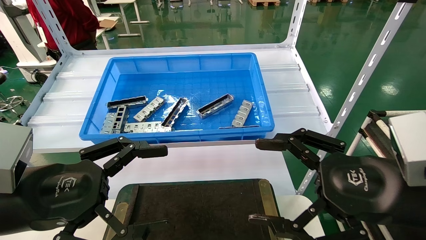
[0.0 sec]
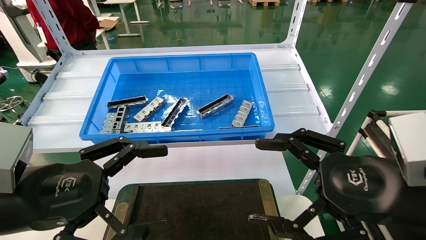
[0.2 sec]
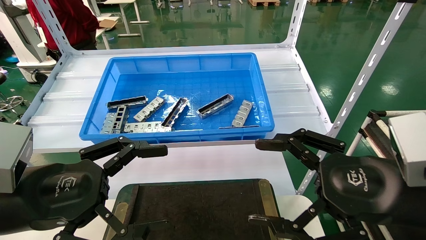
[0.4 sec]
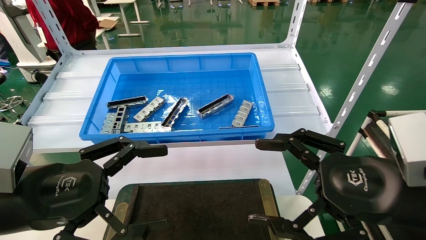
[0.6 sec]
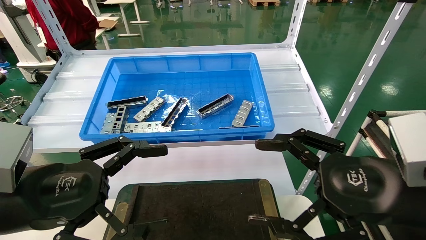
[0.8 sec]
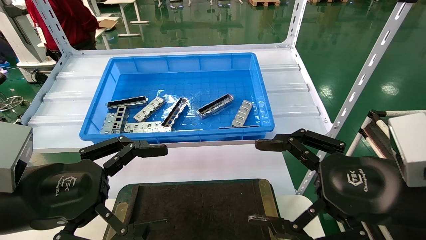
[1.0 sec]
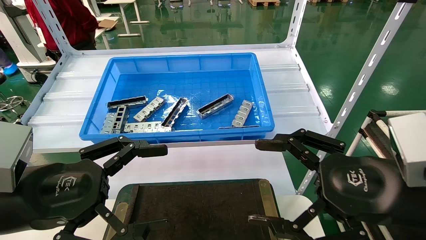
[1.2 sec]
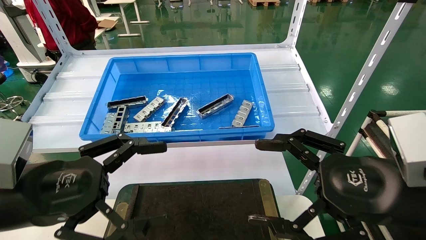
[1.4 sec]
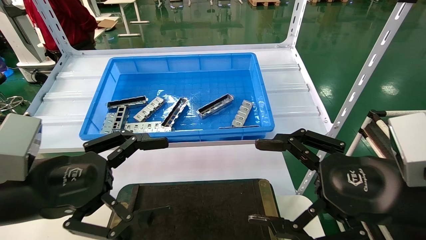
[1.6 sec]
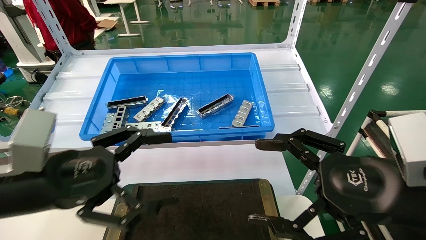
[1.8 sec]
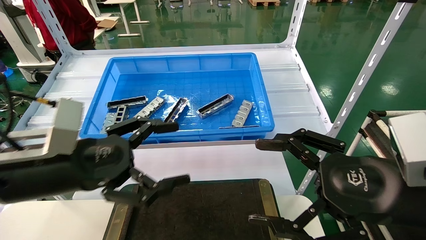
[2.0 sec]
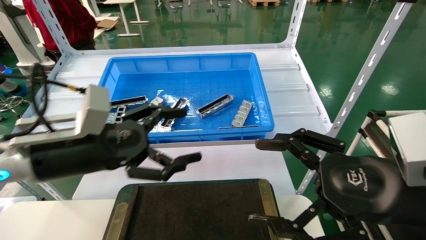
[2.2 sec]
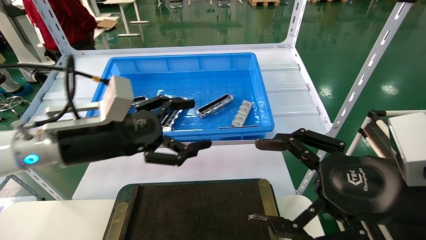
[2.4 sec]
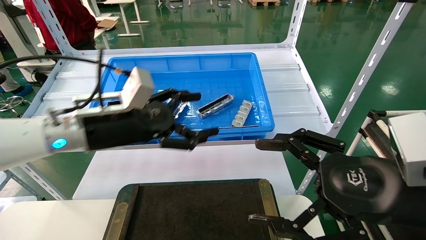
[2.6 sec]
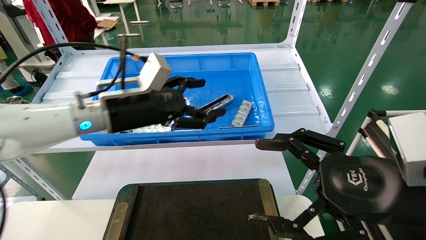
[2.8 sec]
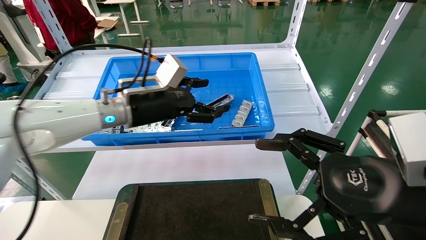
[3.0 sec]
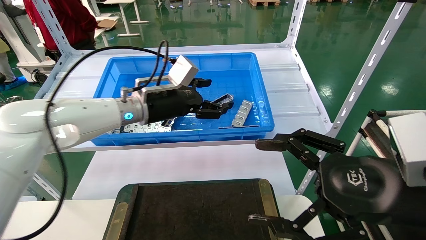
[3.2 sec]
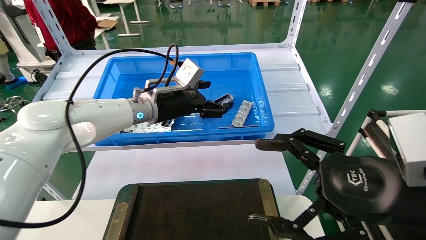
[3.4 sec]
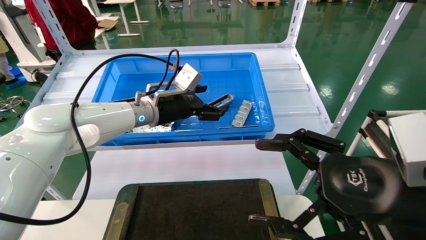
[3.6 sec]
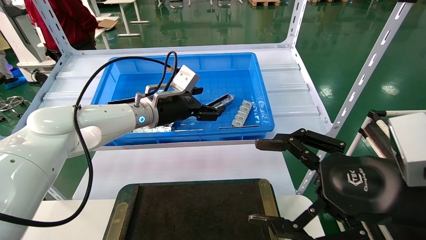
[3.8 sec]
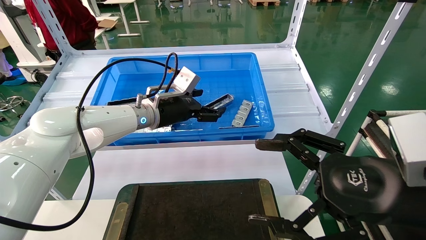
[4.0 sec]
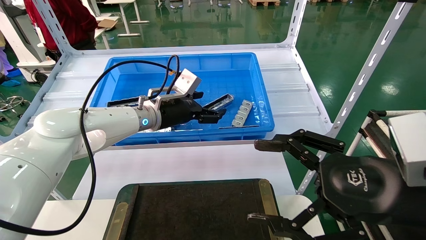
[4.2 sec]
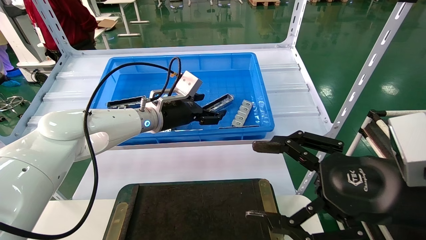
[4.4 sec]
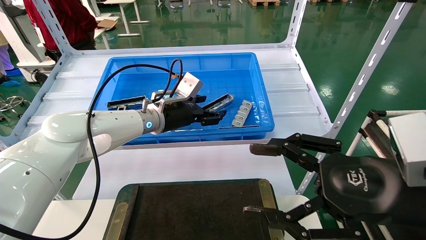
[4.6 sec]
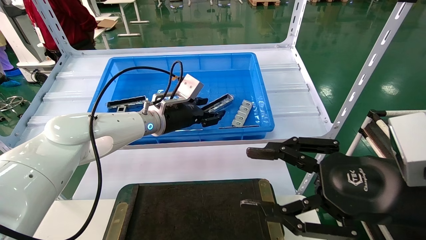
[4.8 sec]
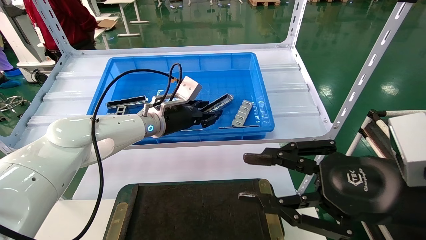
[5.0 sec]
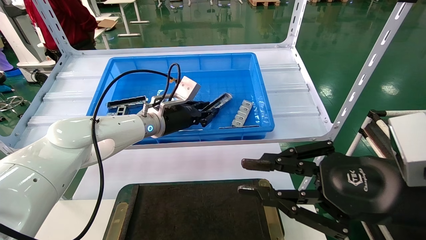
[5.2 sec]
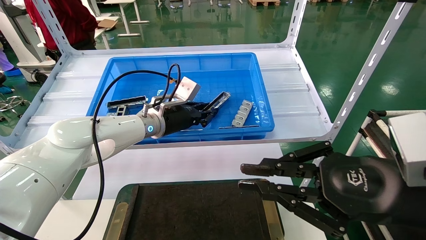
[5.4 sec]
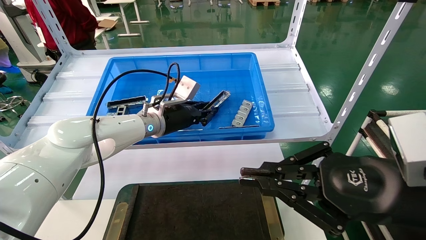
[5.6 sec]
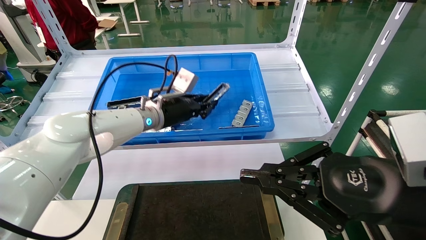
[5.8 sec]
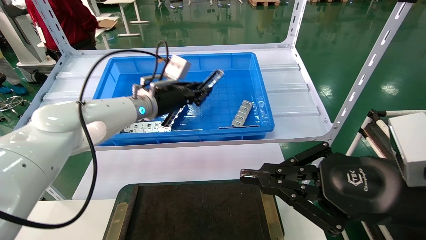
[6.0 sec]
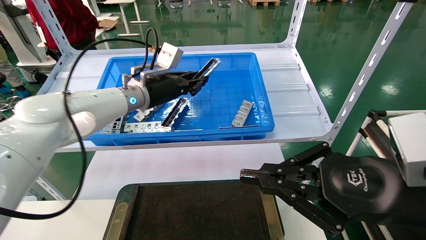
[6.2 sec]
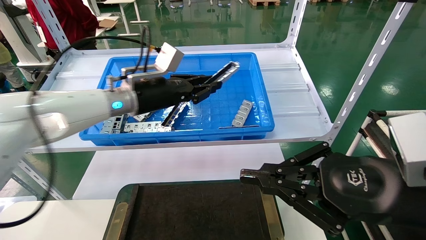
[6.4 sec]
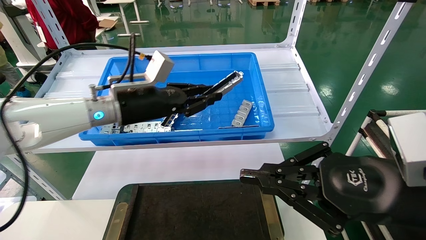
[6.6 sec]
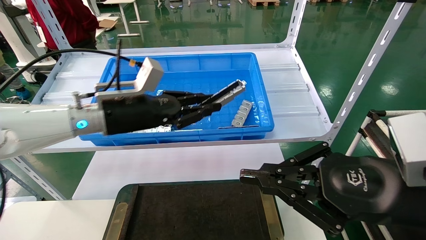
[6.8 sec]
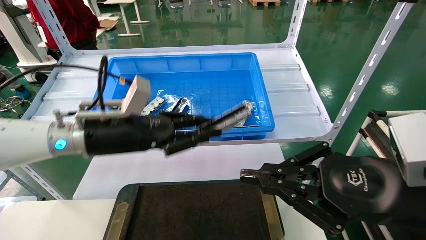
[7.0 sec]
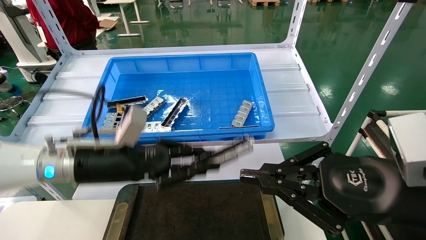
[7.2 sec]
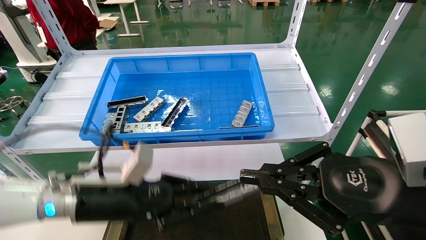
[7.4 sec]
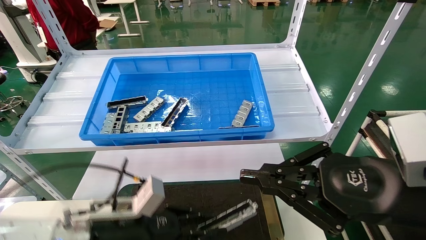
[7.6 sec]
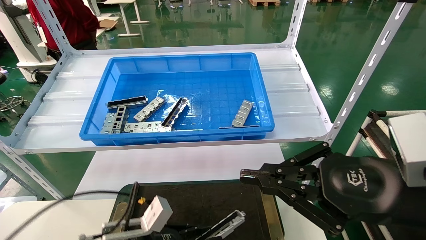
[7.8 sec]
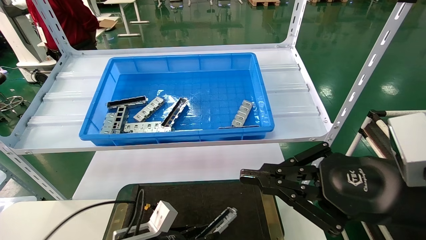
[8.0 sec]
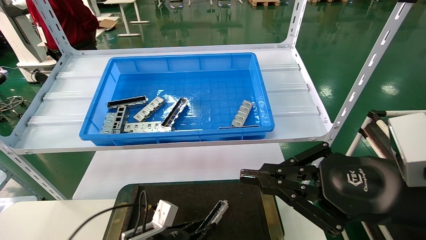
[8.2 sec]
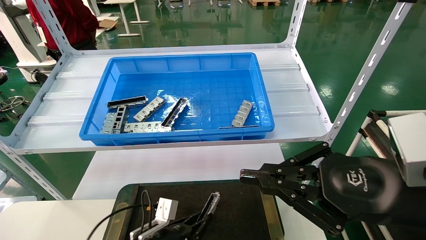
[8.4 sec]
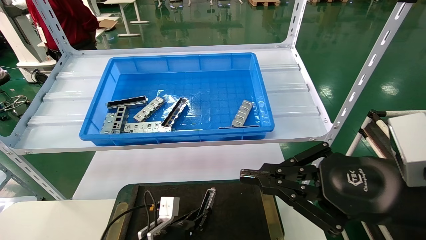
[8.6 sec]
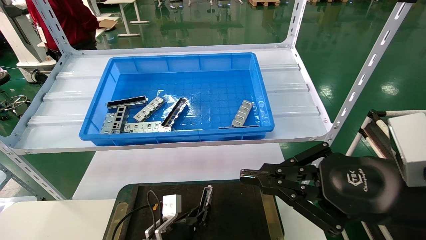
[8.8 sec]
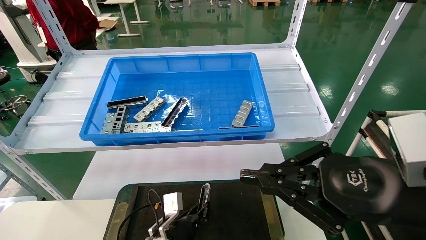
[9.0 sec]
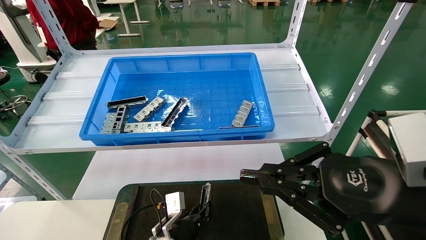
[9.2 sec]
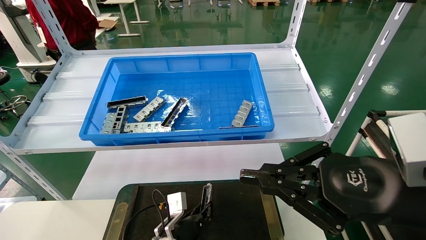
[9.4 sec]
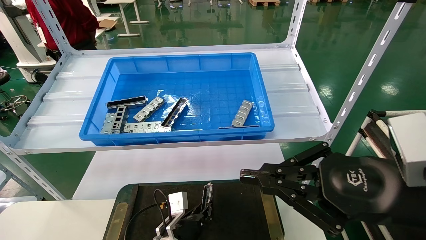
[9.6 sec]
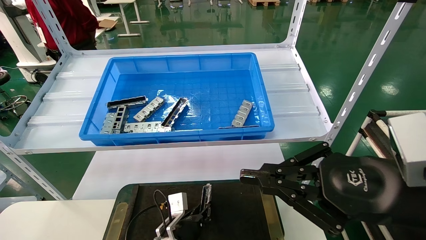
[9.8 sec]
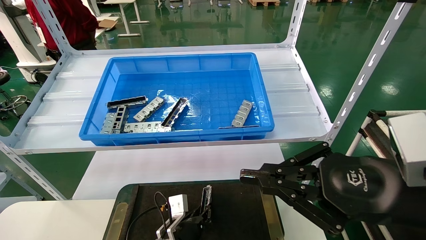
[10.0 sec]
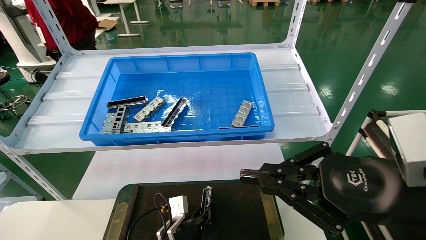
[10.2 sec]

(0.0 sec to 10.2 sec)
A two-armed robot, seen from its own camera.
Task of the whole recording: Grasp the part with one hand and place it on the black container.
Step, 1.8 sec - 5.2 sec: Pick up the front USB bracket from the feeding area.
0.0 sec - 1.4 sec: Both grippers stay put.
1.4 sec - 3.0 sec: The left gripper is displaced forward and to the right by approximately 25 cm.
3.0 sec - 4.4 sec: The left gripper goes roughly 5 cm forward.
4.4 sec - 5.8 sec: The right gripper closes its fingers; the left gripper closes up.
5.8 sec - 7.2 sec: The left gripper heads backward and to the left, covering some 20 cm.
7.2 sec - 8.8 sec: The left gripper moves downward, approximately 25 cm.
8.8 sec - 10.2 sec: The grippers stay close to where they were, moving slightly.

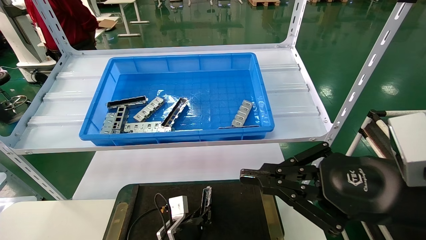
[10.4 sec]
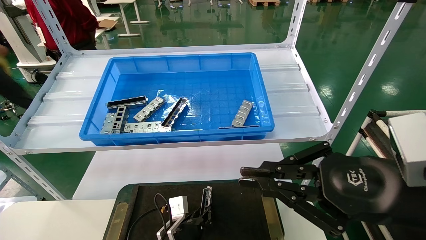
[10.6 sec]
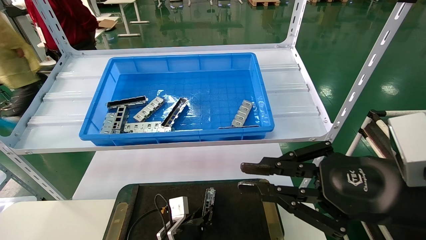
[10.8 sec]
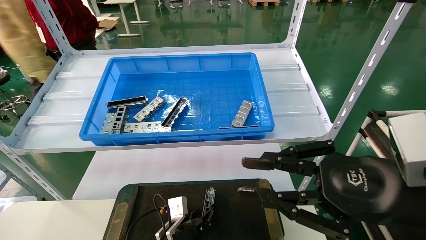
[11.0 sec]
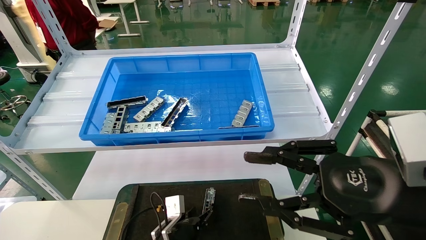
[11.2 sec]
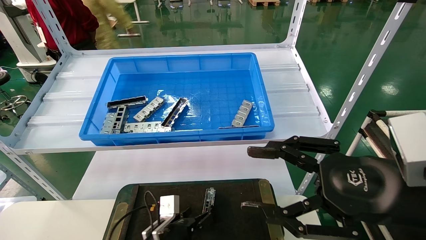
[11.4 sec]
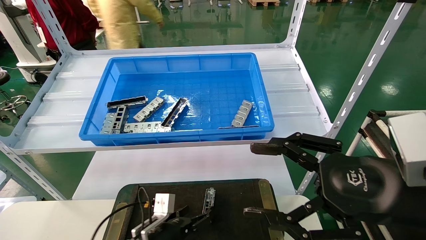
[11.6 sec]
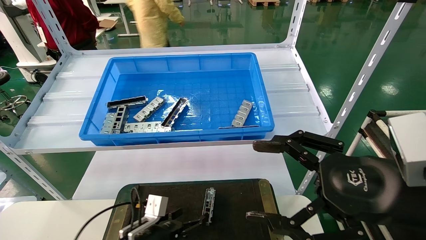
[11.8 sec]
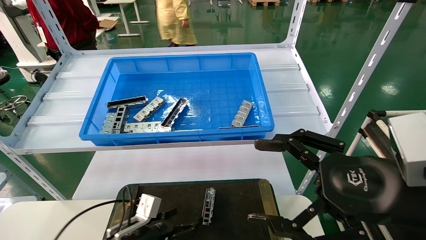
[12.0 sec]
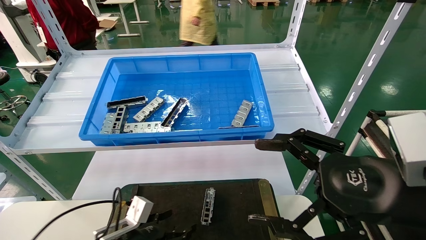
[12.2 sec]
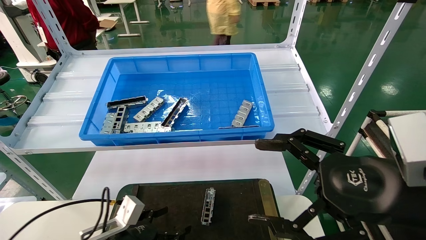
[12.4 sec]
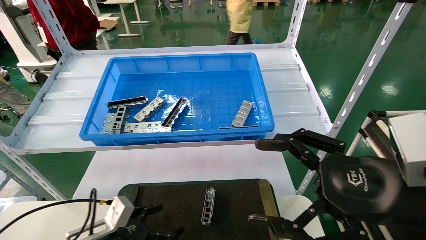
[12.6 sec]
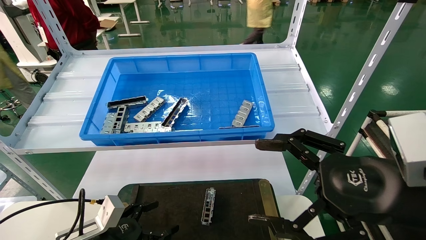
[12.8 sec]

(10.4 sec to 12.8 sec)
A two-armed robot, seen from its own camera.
Task of the whole recording: Grasp the part with one hand and place it on the black container.
10.4 sec - 11.6 sec: The left gripper moves to the left, some 5 cm, and opens. The right gripper opens up.
11.6 sec - 12.8 sec: The left gripper travels to the left, backward and upward by approximately 15 cm.
